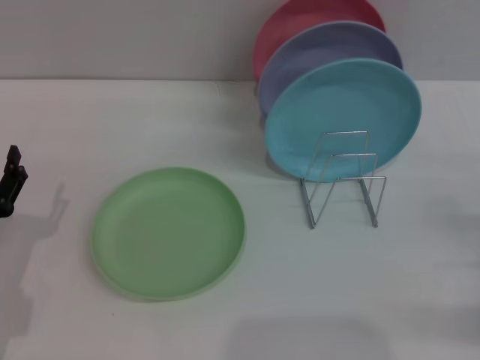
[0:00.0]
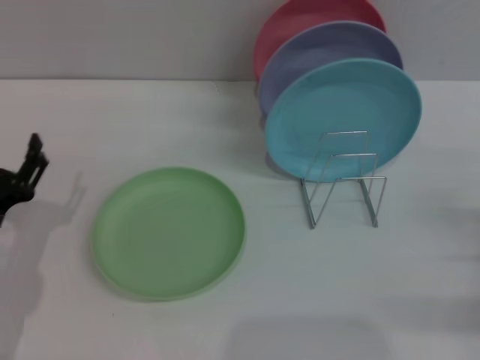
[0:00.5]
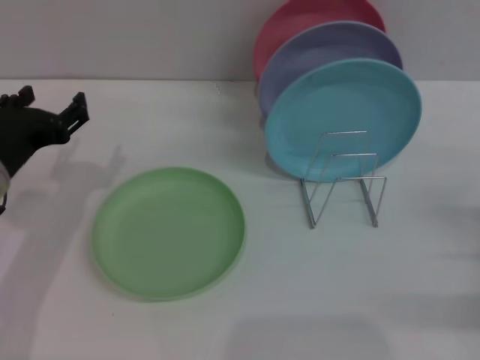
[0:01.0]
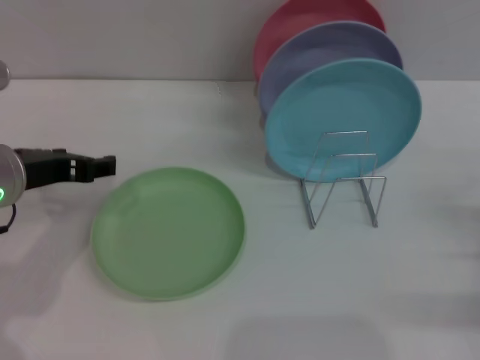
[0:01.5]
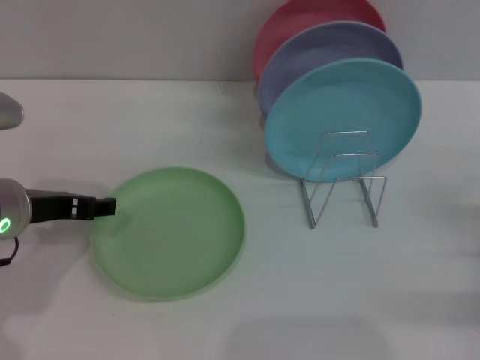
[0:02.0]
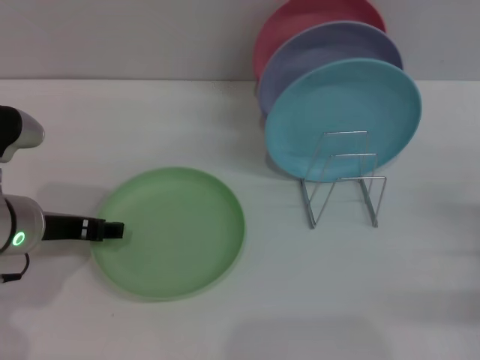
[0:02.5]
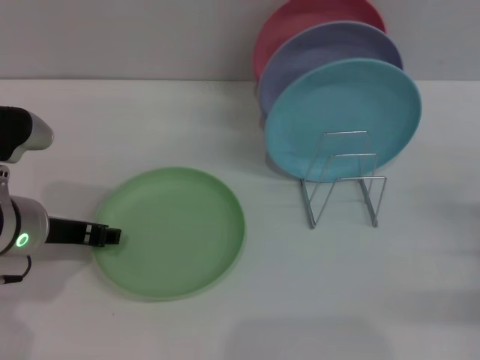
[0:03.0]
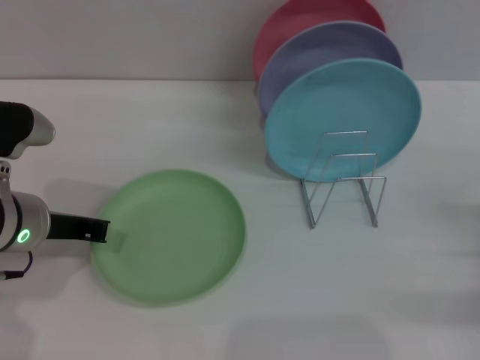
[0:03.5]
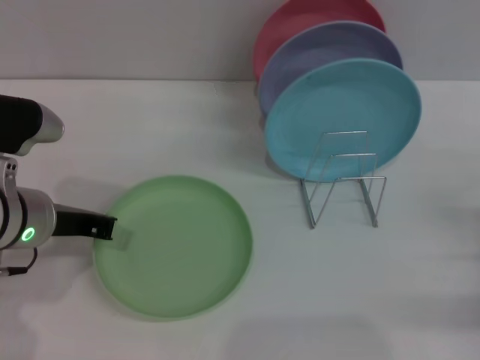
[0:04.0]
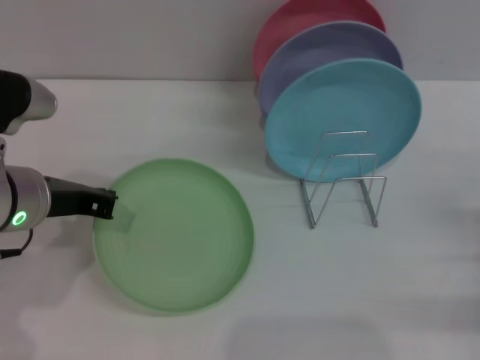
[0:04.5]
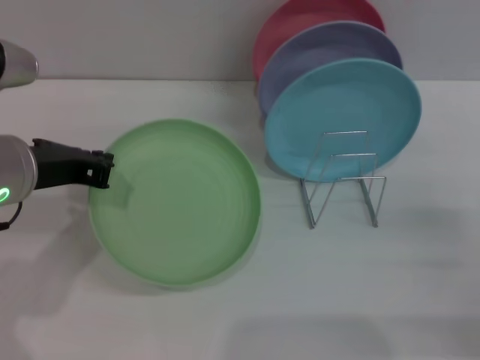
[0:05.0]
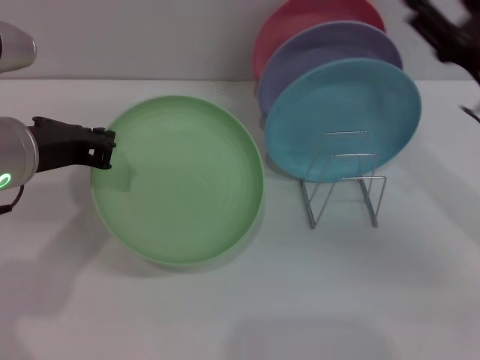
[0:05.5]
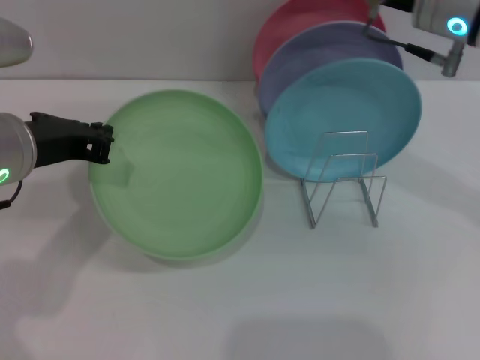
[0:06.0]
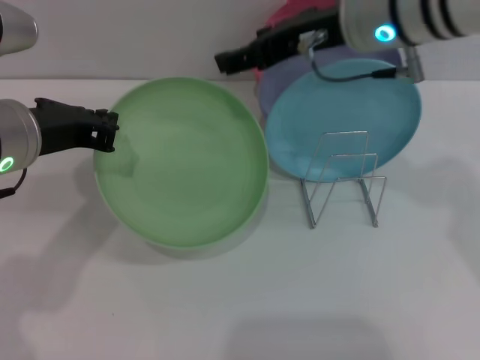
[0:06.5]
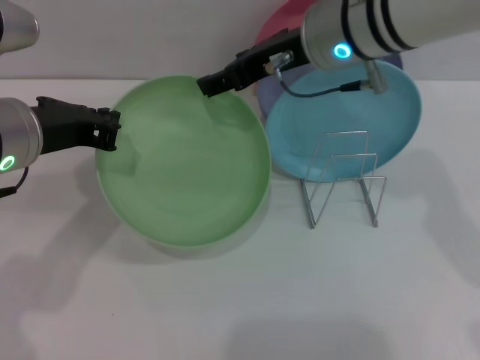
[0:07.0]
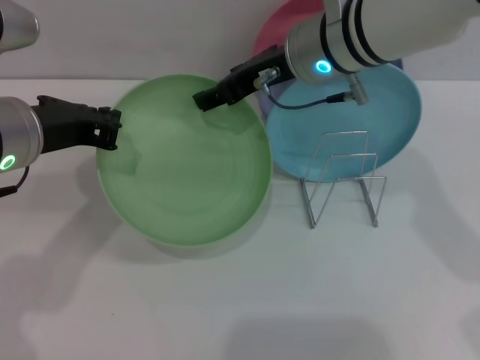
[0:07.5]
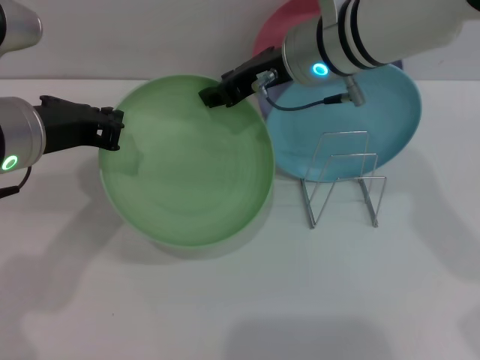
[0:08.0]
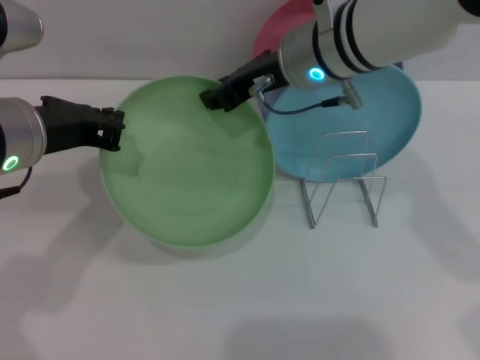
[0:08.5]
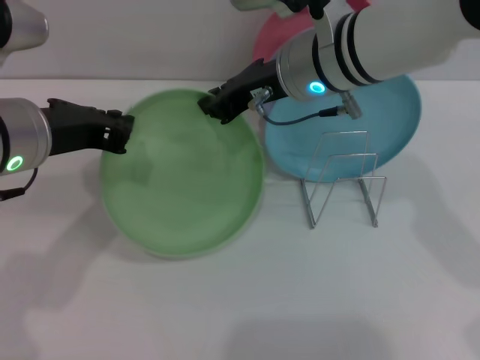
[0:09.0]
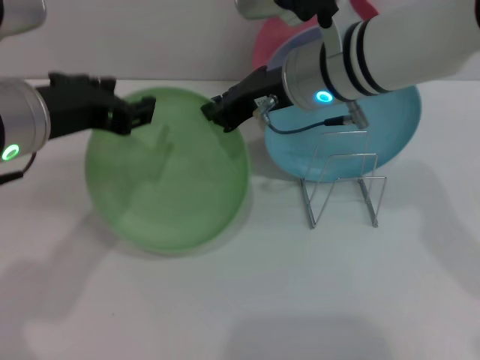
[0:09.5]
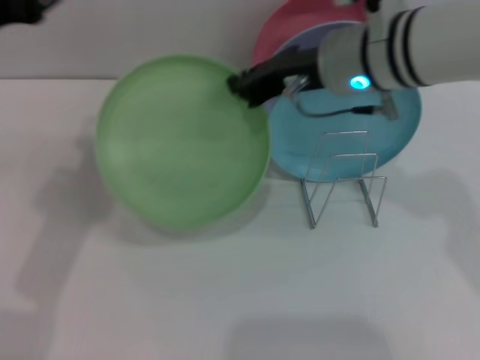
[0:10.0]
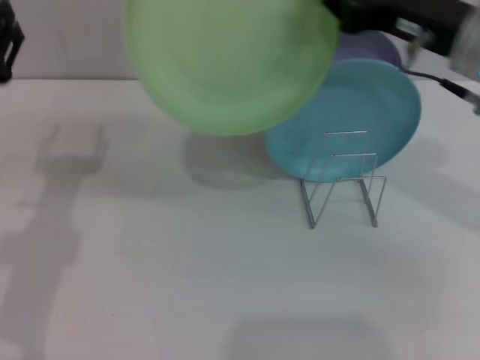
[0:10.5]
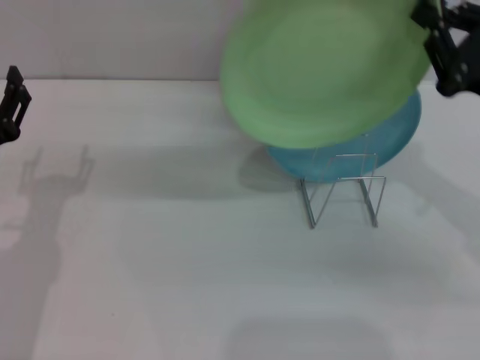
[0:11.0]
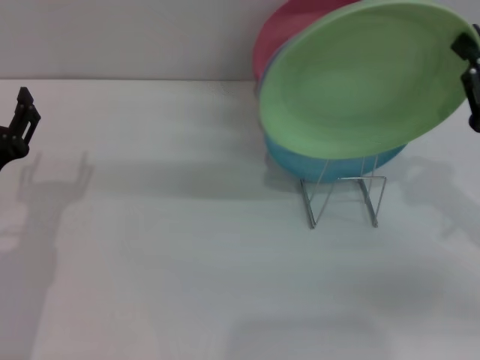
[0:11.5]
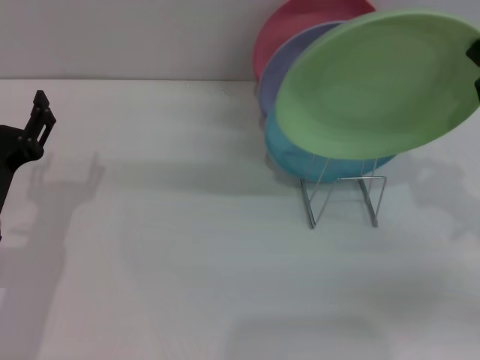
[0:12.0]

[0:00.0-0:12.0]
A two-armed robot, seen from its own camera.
Task of the whole recording: Grip the plate with one hand, pass it to the other, then set it on the shelf.
Step, 0:00.0 to 0:05.0: Pick up the plate with the left gripper.
Step, 0:05.5 to 0:09.0: Pass the plate from the left gripper to the right gripper.
0:00.0 to 0:02.0: The left gripper moves upward, forward and to the right, some 15 cm.
0:02.0 to 0:04.0: The left gripper closes up.
0:04.0 to 0:06.0: The left gripper goes approximately 10 cm upward; the right gripper travels upward, to the left and forward by about 35 cm.
0:06.0 to 0:08.0: The right gripper shifts roughly 10 cm to the left.
0:08.0 to 0:10.0: The right gripper closes; the left gripper opens its fingers.
0:10.0 to 0:12.0: The left gripper moves downward, about 15 cm, while the right gripper moves to the right, backward and downward, approximately 25 cm.

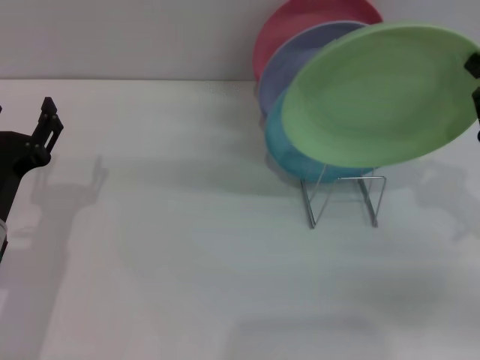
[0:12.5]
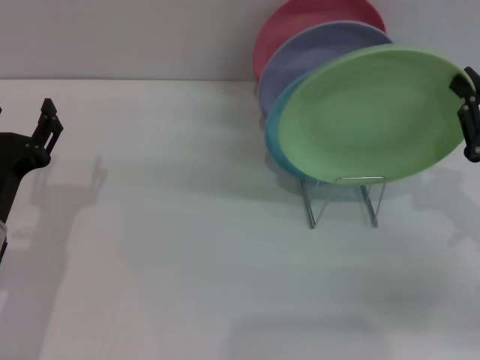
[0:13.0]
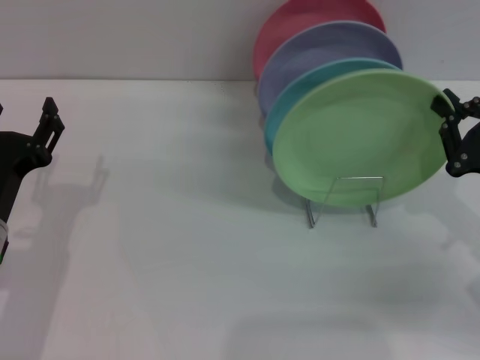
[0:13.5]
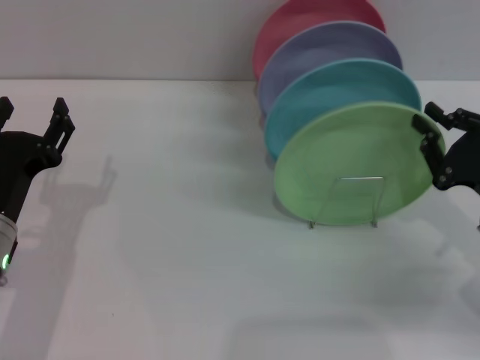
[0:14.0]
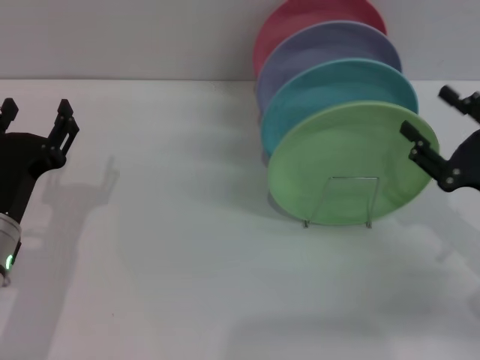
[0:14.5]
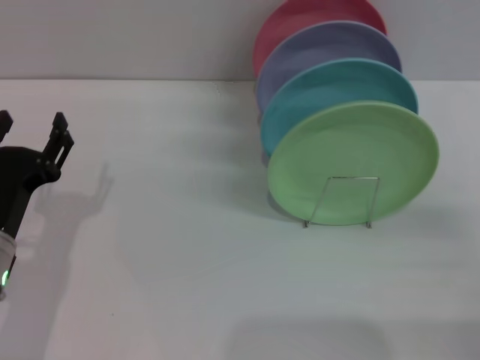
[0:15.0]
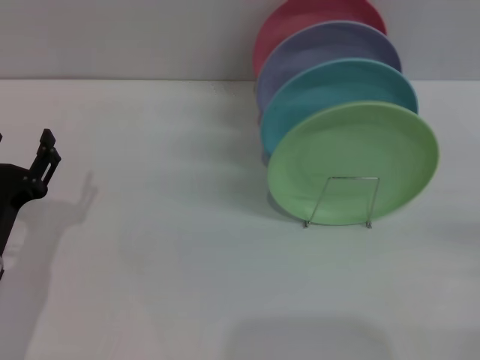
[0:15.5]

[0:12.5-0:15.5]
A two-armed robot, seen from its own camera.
Task of the whole recording: Grip the plate with one hand, pass it to the other, then set it on the shelf.
0:12.5 to 0:14.0: The grippers move only a little.
0:14.0 to 0:15.5: The right gripper travels to the right and backward by about 10 cm, and opens its fingers.
